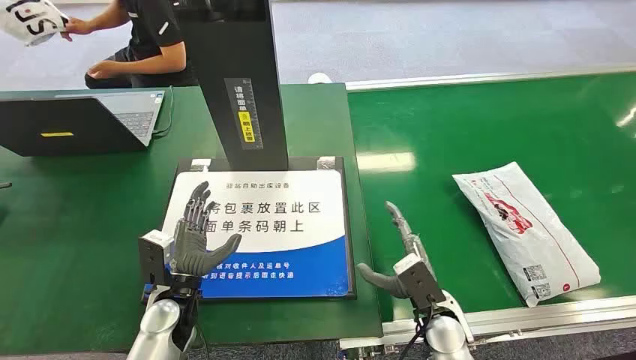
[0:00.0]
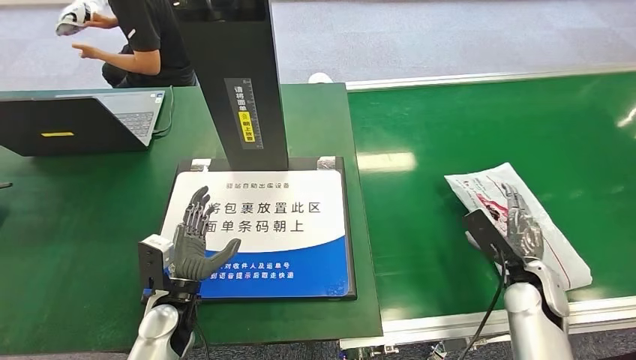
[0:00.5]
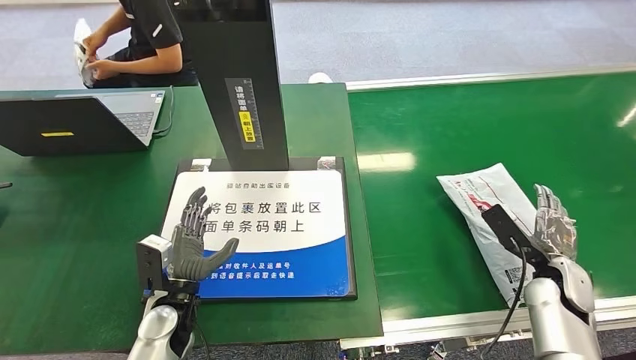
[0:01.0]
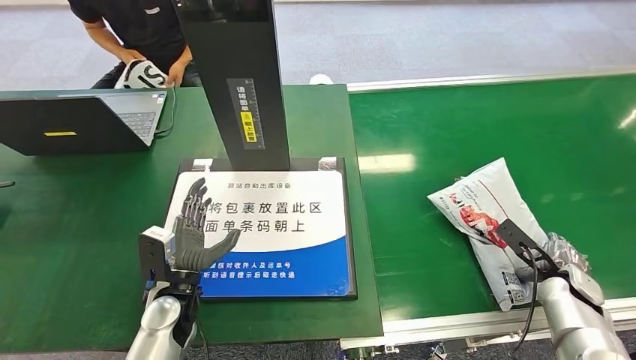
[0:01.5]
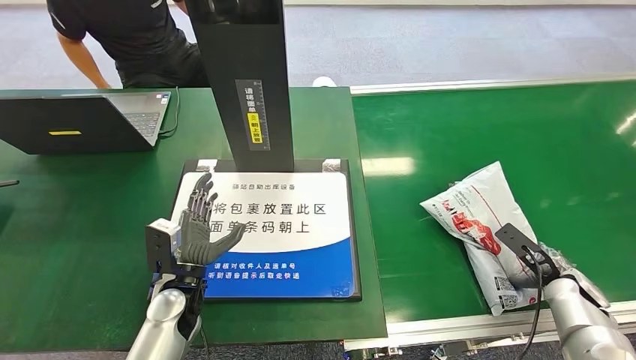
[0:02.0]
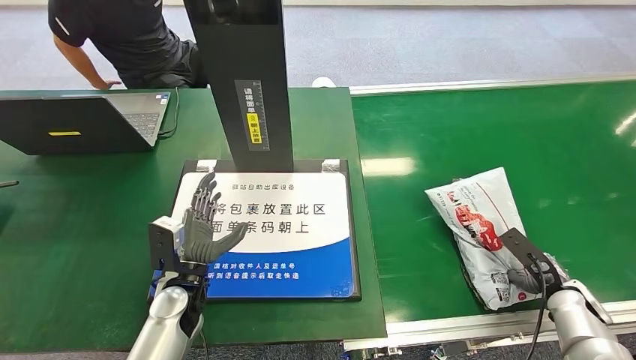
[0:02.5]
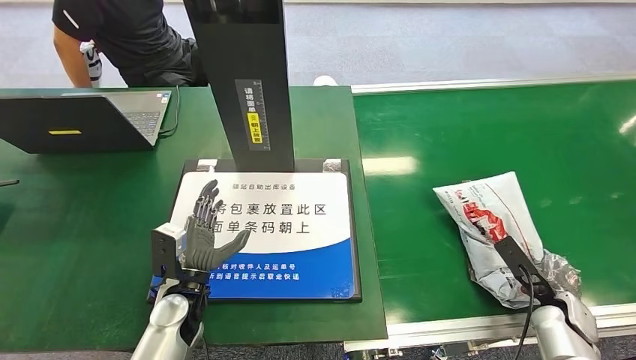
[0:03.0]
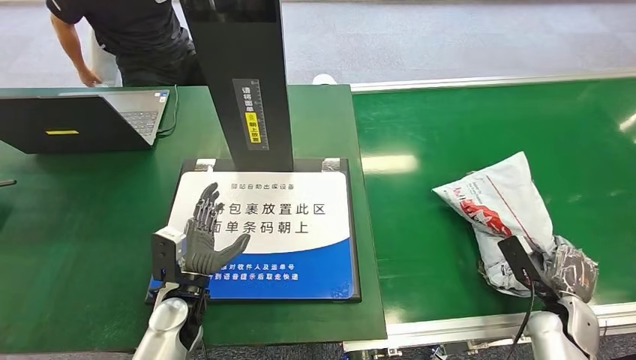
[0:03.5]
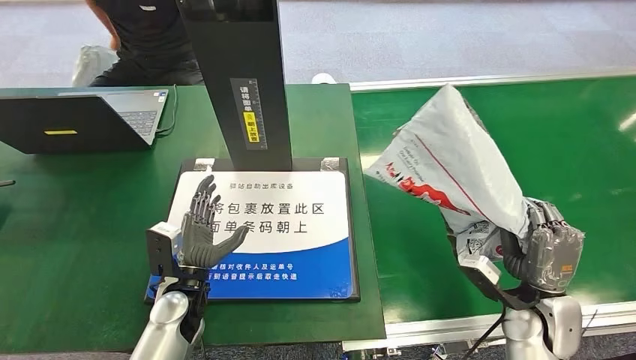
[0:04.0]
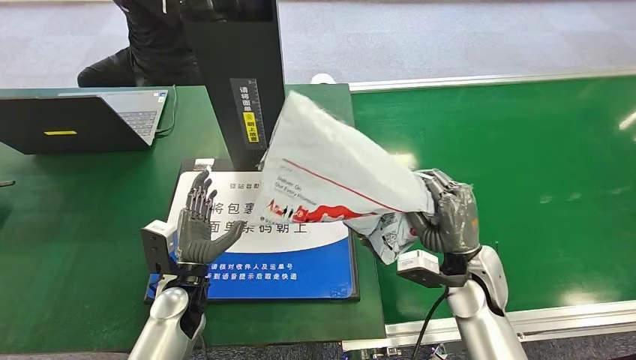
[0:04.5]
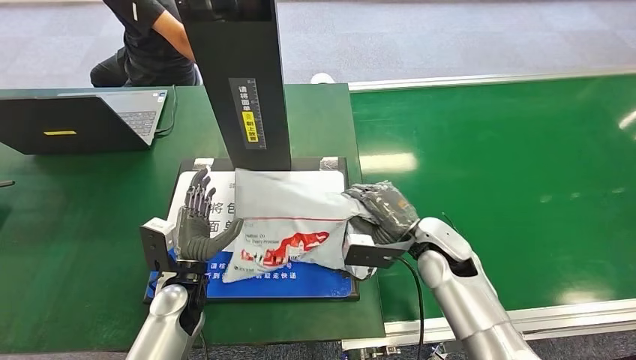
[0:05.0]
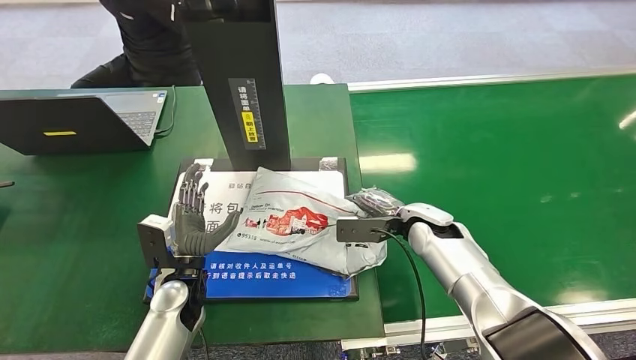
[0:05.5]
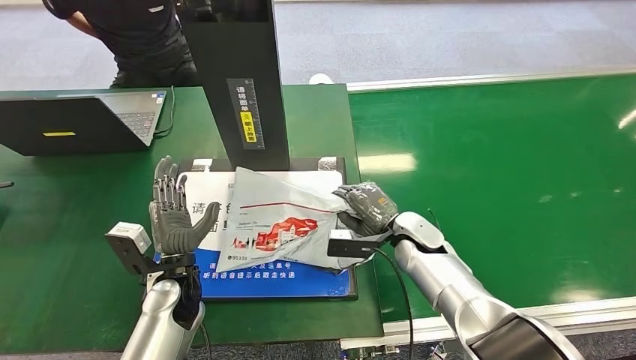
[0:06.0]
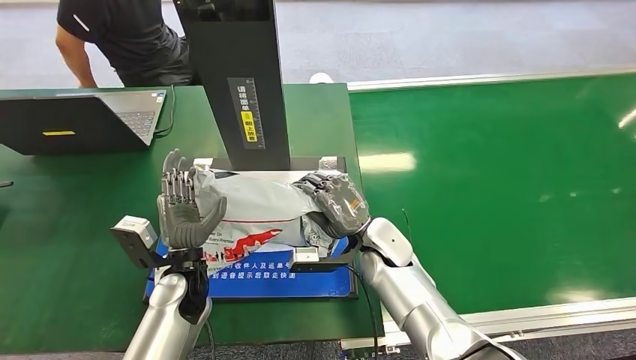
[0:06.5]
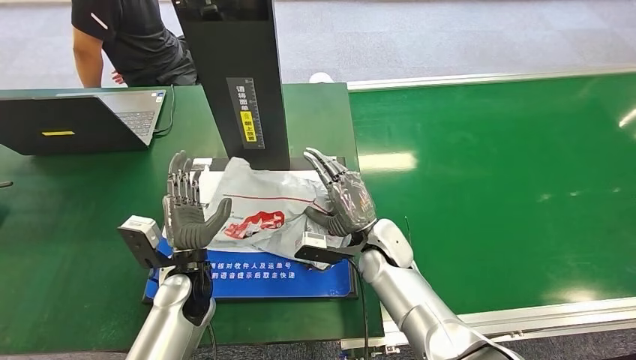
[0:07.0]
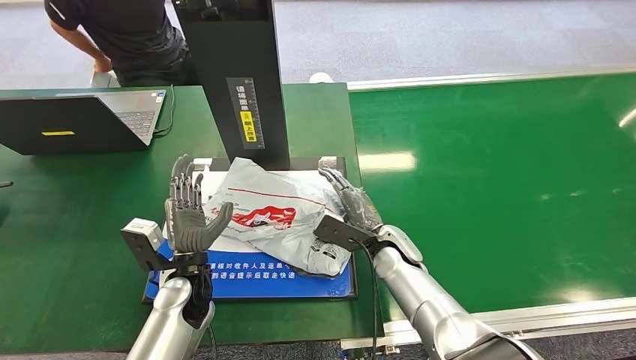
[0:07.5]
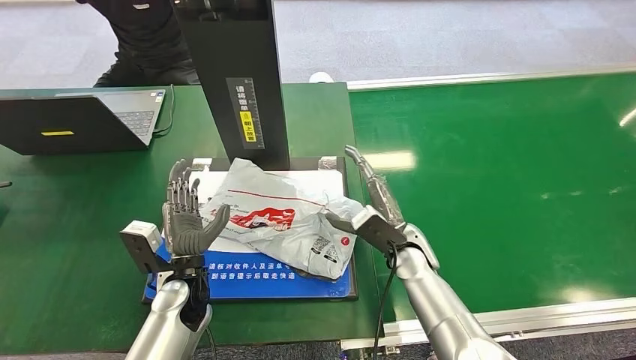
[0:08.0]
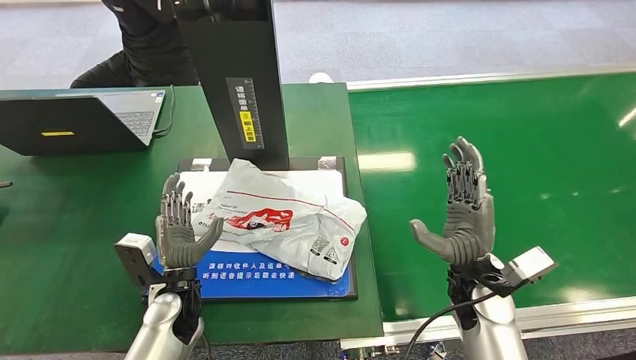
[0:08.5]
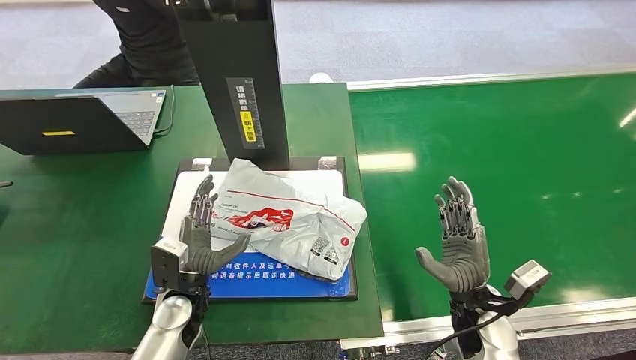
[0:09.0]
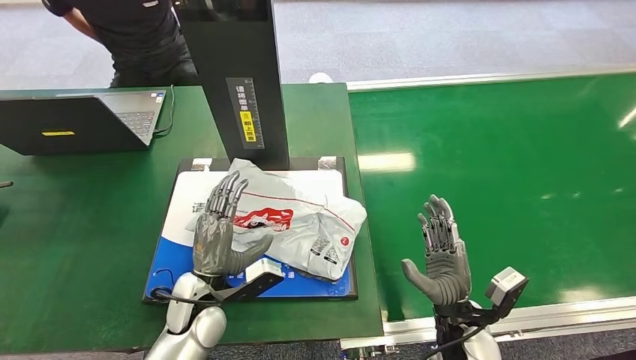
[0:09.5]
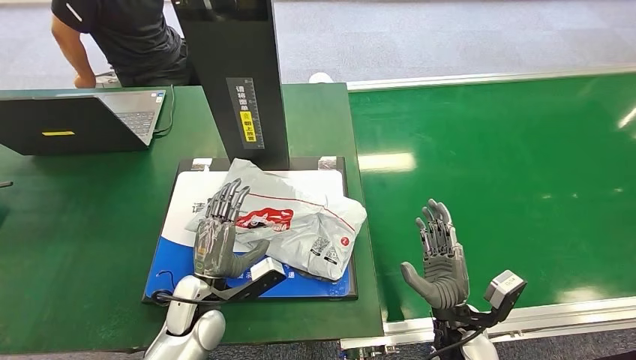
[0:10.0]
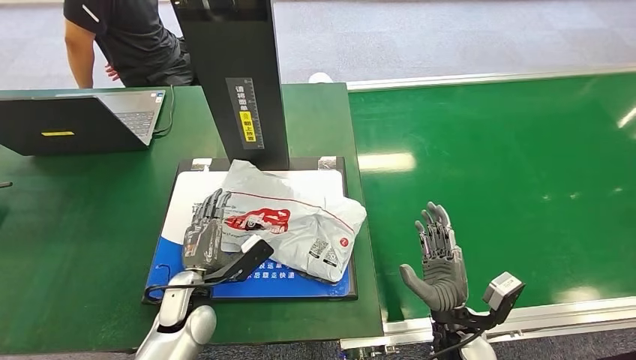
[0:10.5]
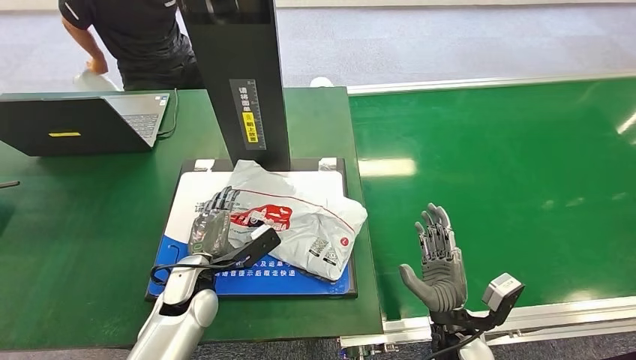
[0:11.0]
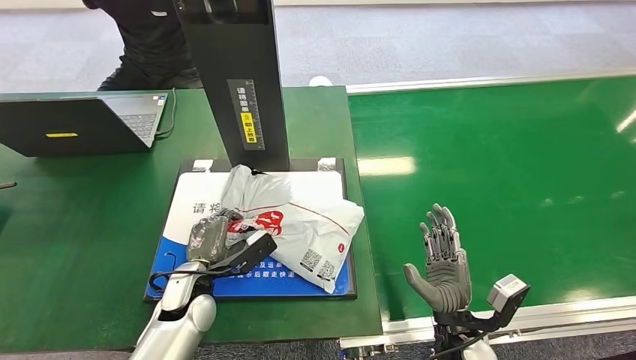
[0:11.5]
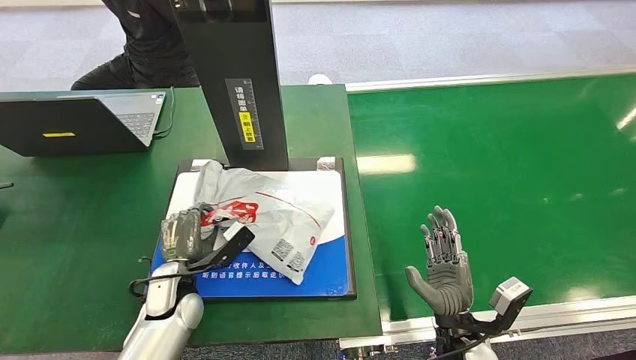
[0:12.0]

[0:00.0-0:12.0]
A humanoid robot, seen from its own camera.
Step, 0:00.0 to 0:04.0: Pick up the package from the conveyor belt.
Step, 0:04.5 to 0:07.5: Place the package onto the inbound machine.
0:08.0 to 0:10.0: The right hand moves backward and to the right, approximately 15 cm.
0:10.0 to 0:12.0: The left hand shifts some 5 cm to the left.

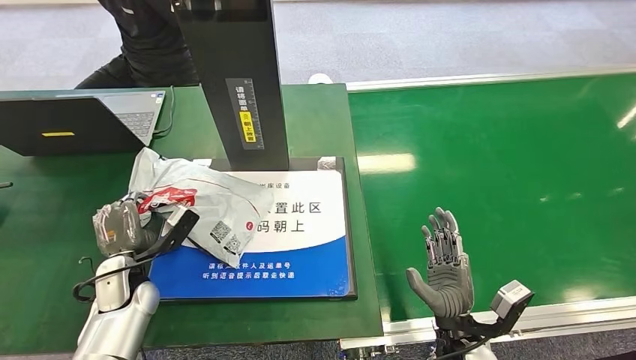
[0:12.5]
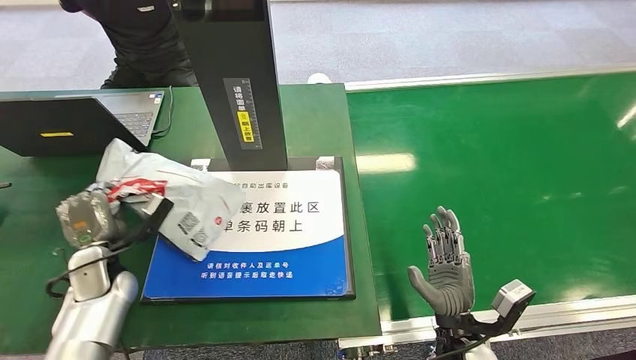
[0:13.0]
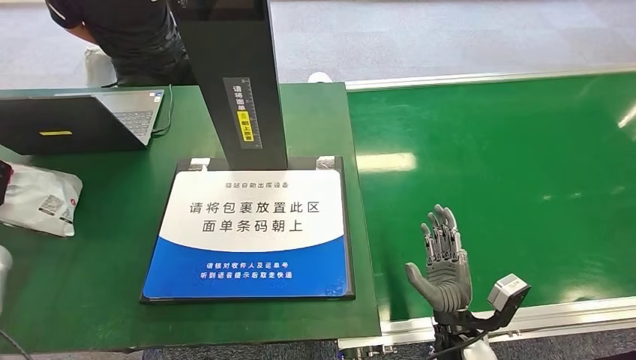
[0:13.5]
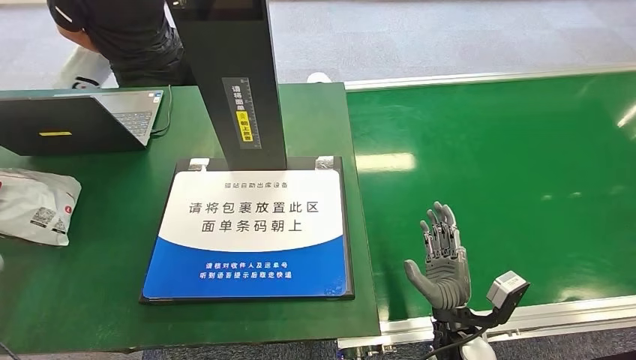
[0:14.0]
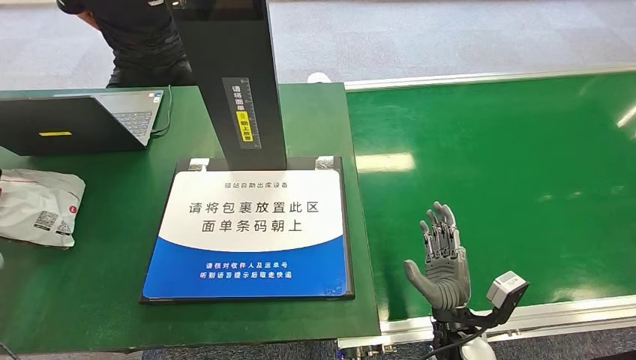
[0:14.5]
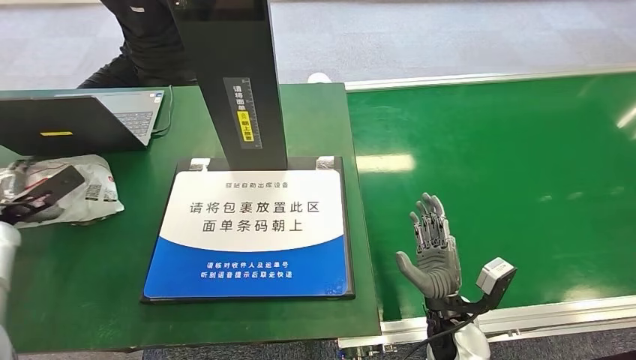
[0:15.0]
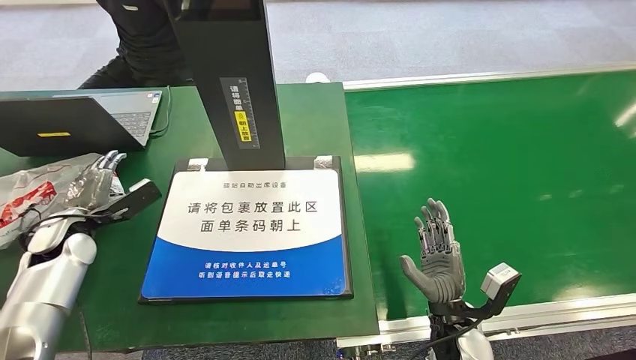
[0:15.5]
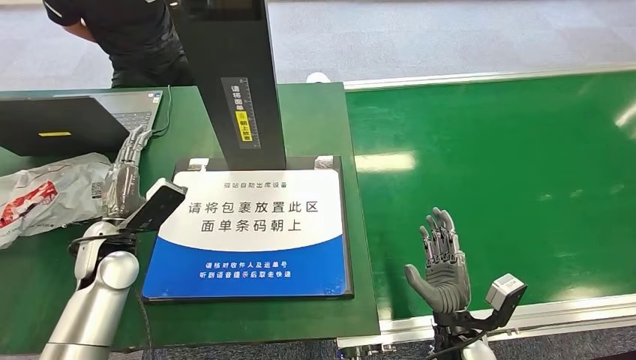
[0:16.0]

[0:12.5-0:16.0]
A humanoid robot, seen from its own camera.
Step, 0:13.5 to 0:16.0: Place the package into the parcel locker.
0:12.5 to 0:14.5: The left hand goes some 25 cm to the left.
0:14.5 to 0:16.0: The left hand shifts some 25 cm to the right.
